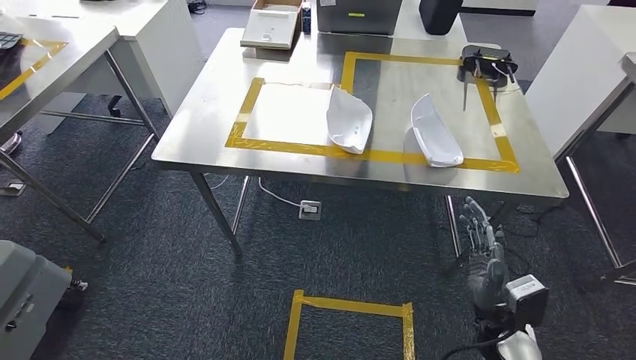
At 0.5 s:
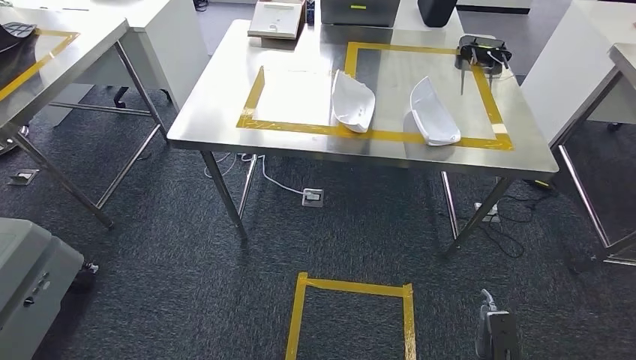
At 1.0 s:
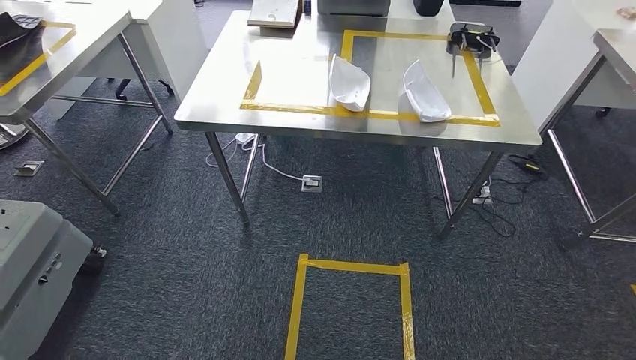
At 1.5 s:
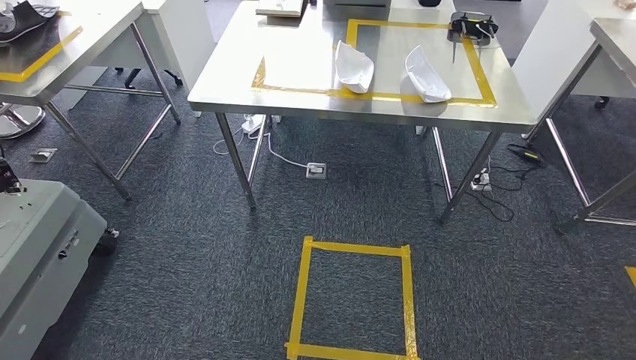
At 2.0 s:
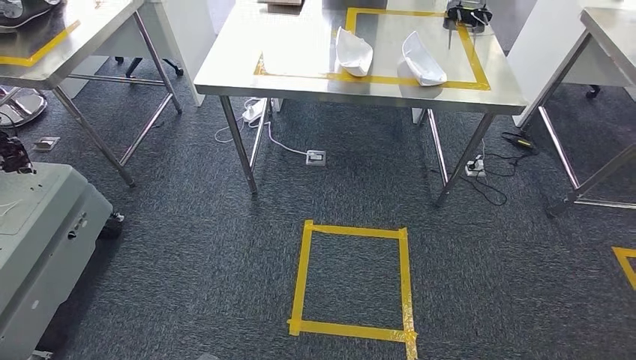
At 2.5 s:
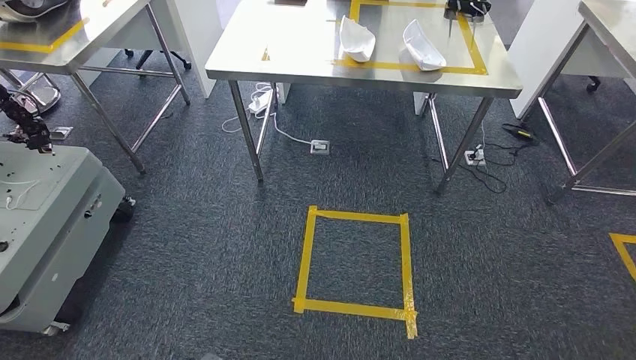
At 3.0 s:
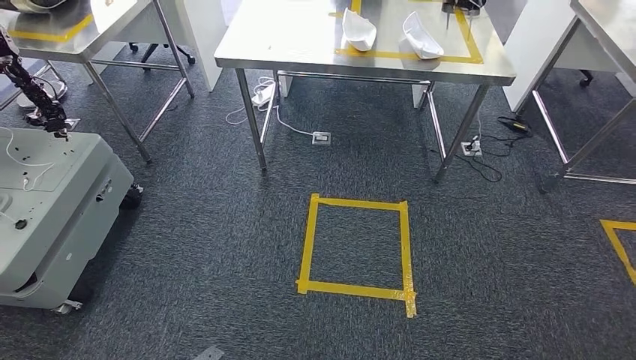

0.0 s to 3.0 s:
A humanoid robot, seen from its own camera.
Step, 0.0 to 3.0 s: Return to the initial position at the workbench.
